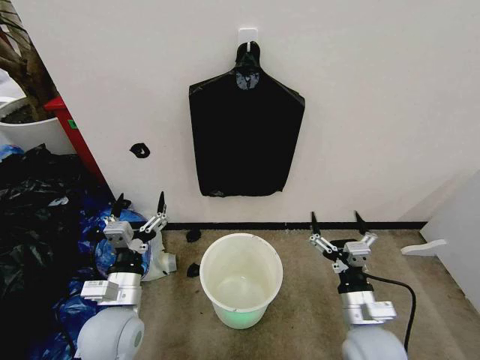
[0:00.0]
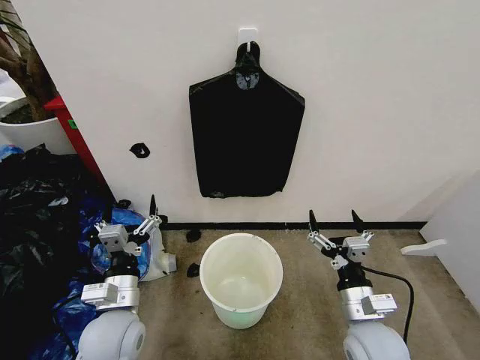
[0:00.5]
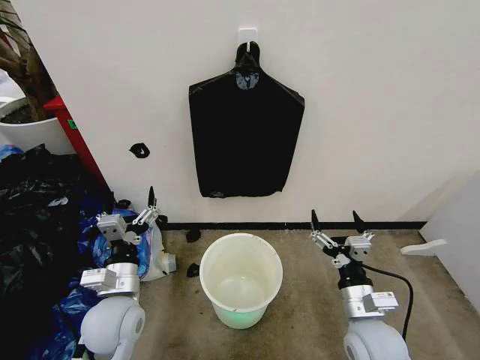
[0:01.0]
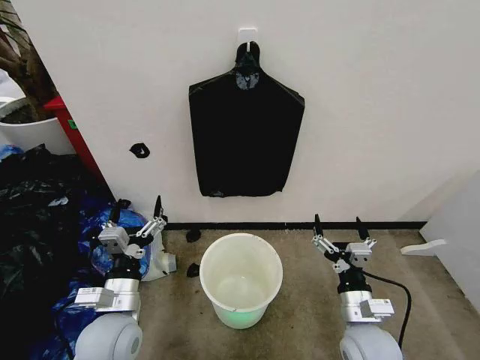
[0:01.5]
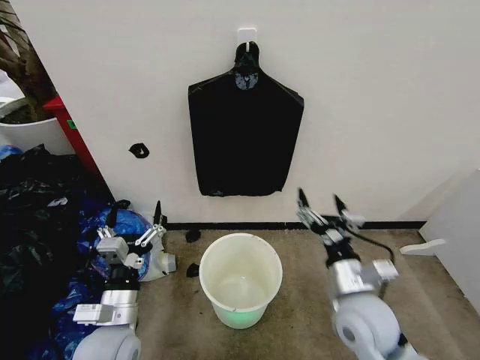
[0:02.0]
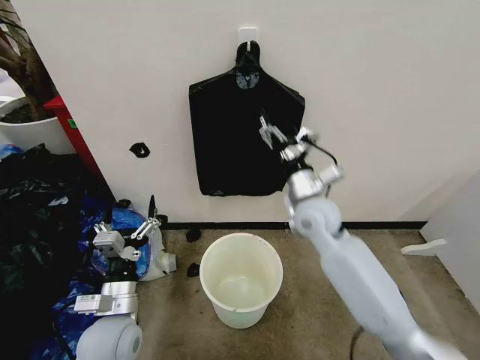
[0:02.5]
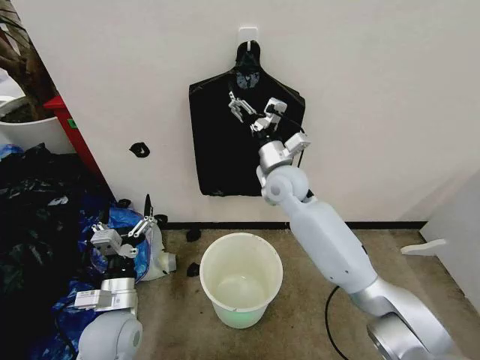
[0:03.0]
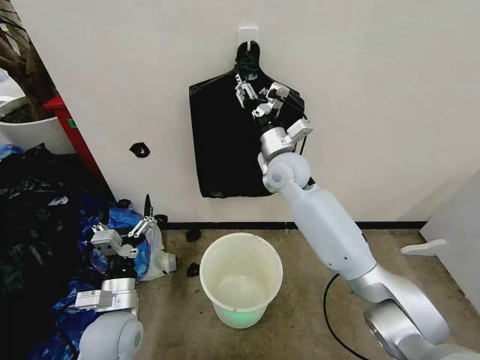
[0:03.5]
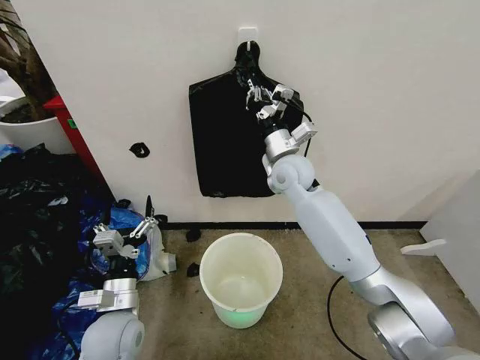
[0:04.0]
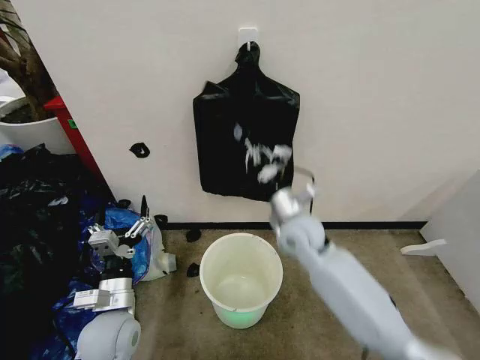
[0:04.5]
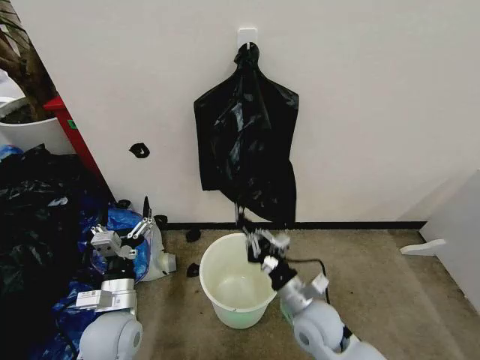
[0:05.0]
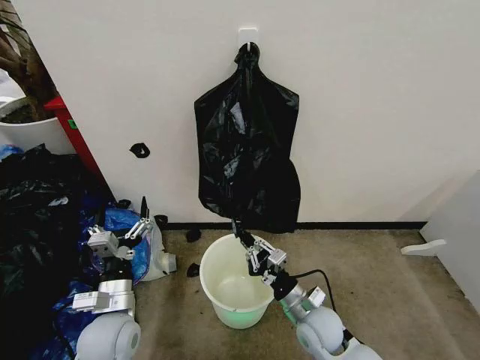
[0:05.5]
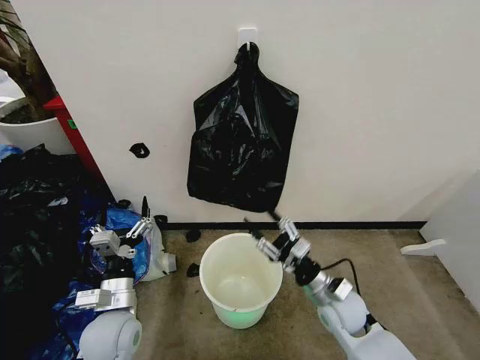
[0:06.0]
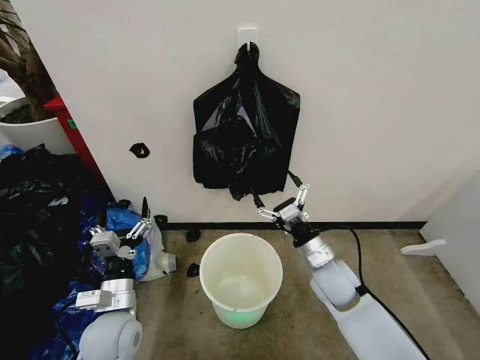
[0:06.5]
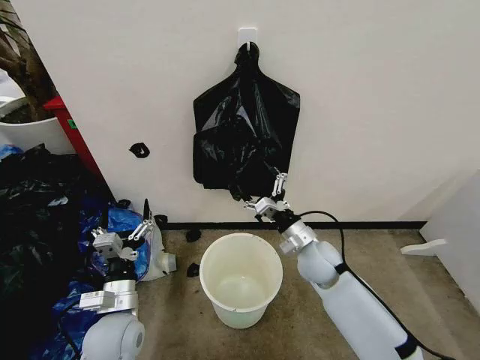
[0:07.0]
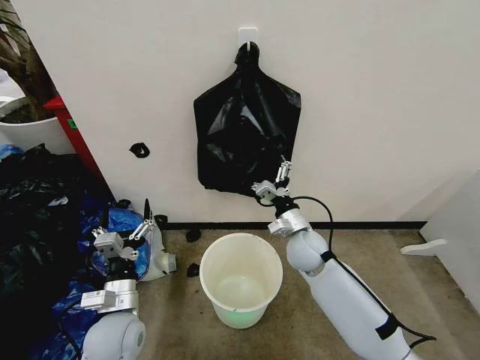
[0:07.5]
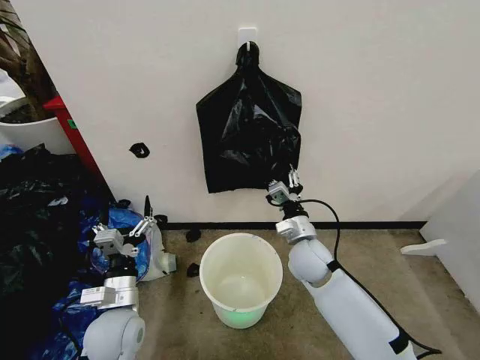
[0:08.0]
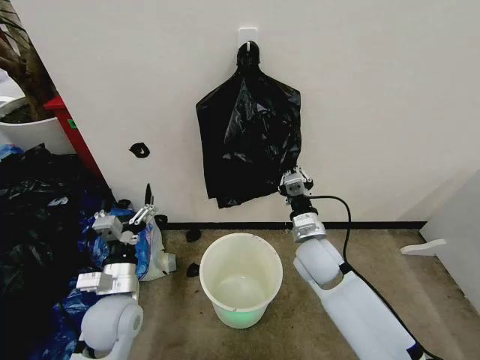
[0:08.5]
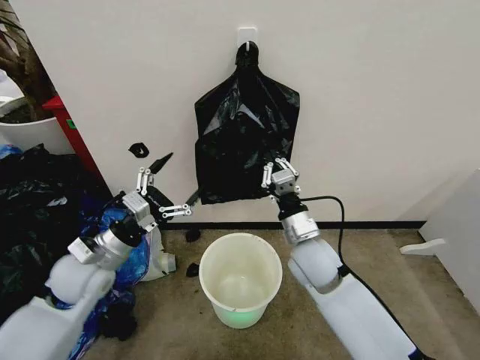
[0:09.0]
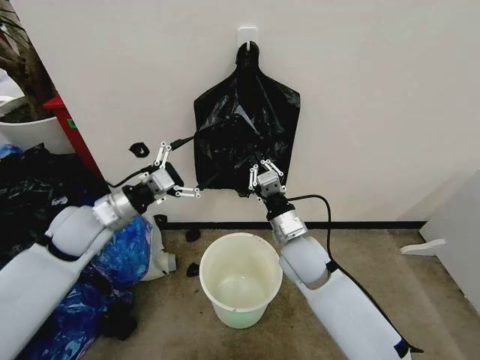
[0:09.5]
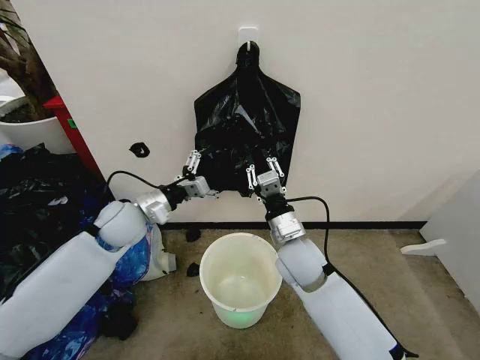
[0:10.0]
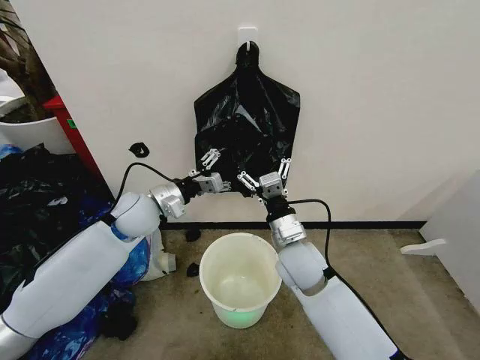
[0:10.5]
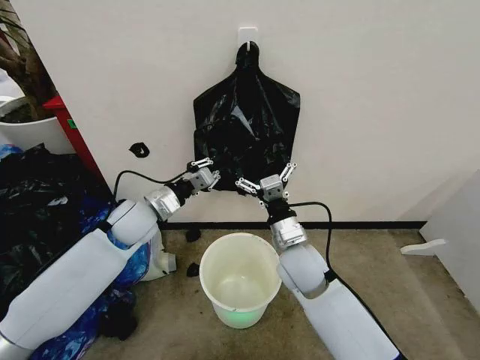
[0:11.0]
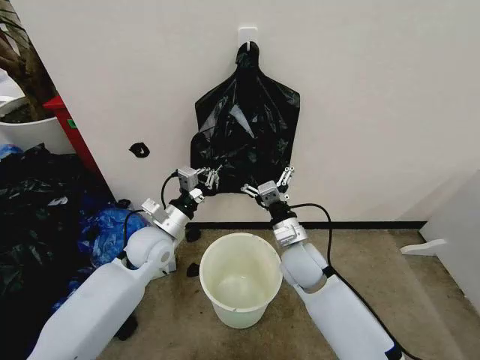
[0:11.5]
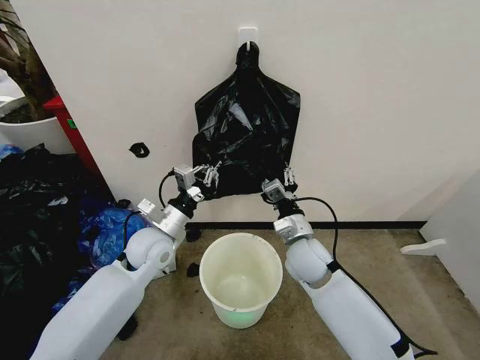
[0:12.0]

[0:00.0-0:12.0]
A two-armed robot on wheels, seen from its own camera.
Task of the whole recording: Place the garbage bag over the trash bin.
0:02.0 to 0:04.0: The right gripper heads forward and upward, covering approximately 30 cm, and closes.
0:04.0 to 0:06.0: The right gripper travels backward, downward and to the right by about 35 cm, and opens up.
0:06.0 to 0:08.0: The right gripper moves forward, to the left and upward, roughly 10 cm, and opens and closes again.
0:08.0 to 0:10.0: The left gripper is displaced forward and upward by some 20 cm, while the right gripper travels upward by approximately 5 cm.
0:10.0 to 0:12.0: The left gripper goes approximately 10 cm to the right and downward, and closes its fingers. The right gripper opens and closes again.

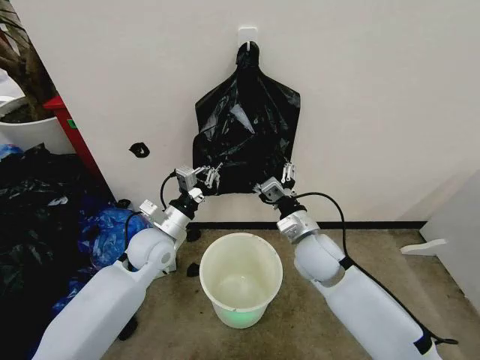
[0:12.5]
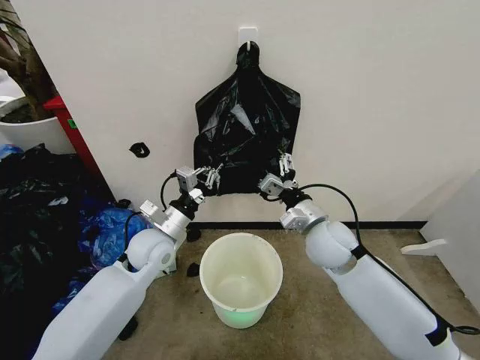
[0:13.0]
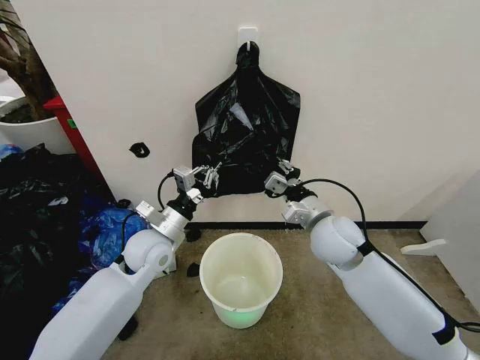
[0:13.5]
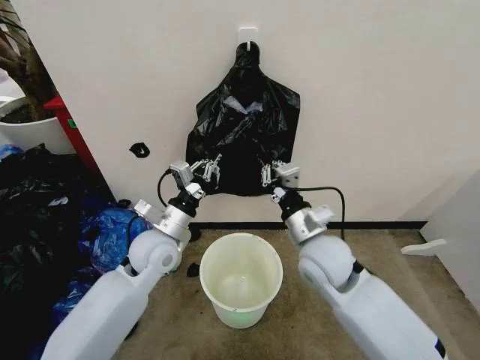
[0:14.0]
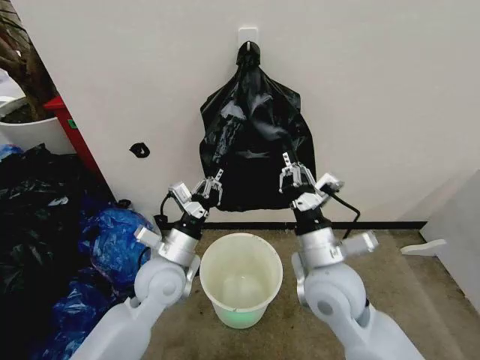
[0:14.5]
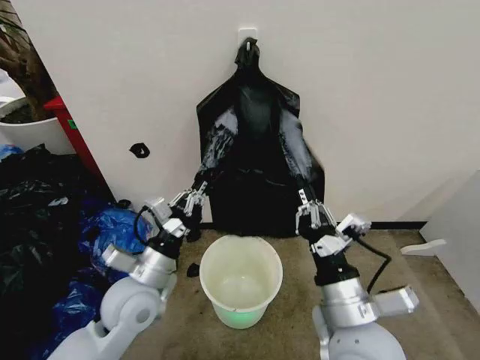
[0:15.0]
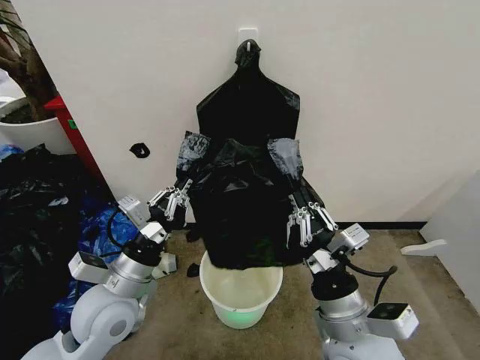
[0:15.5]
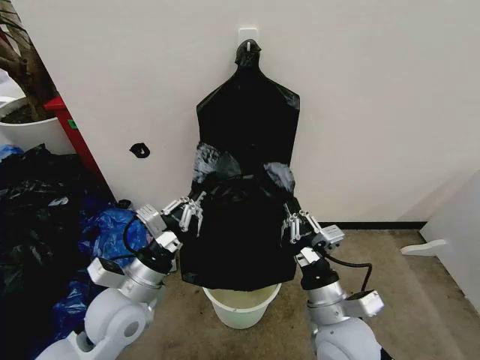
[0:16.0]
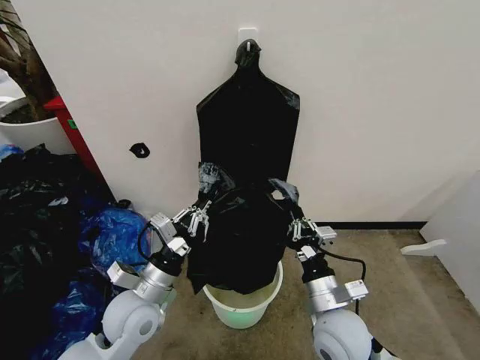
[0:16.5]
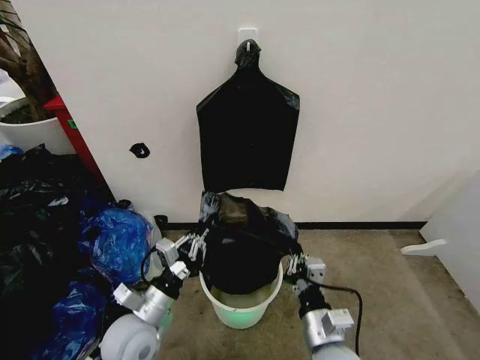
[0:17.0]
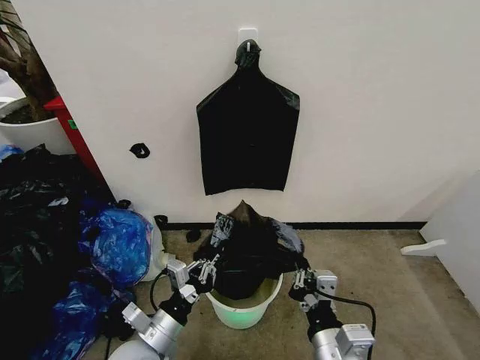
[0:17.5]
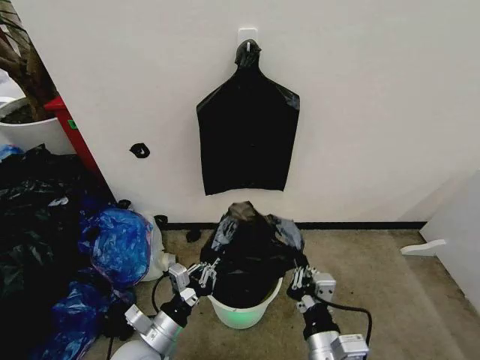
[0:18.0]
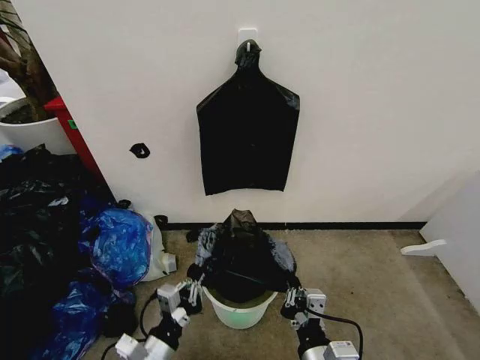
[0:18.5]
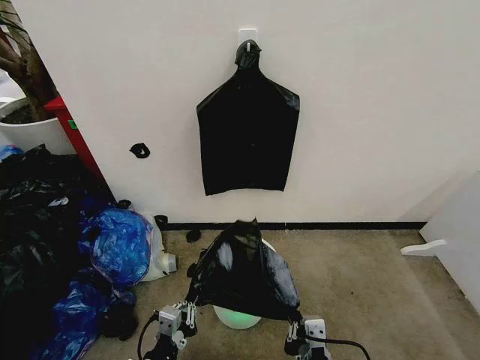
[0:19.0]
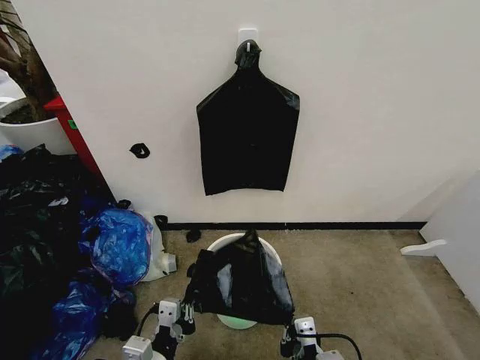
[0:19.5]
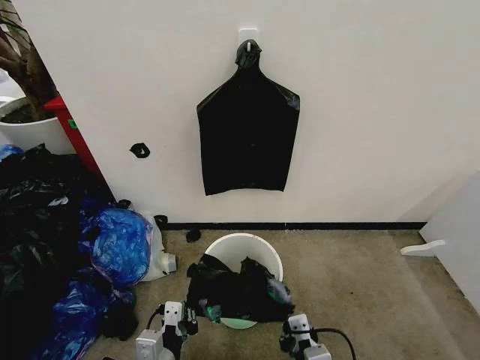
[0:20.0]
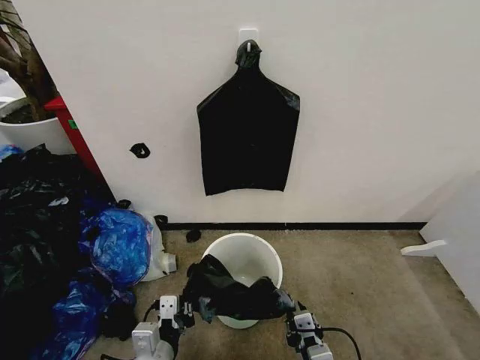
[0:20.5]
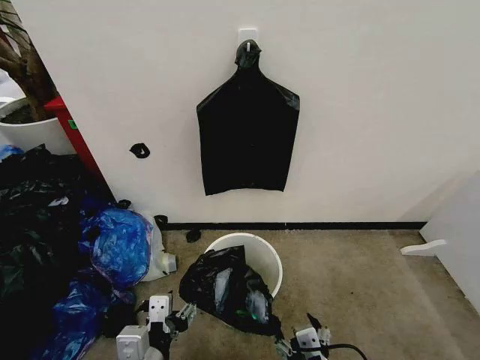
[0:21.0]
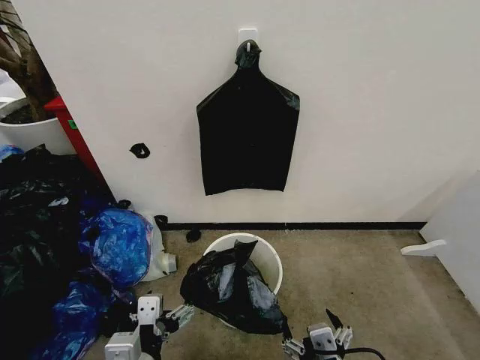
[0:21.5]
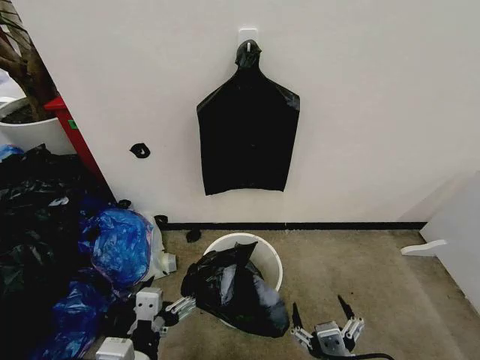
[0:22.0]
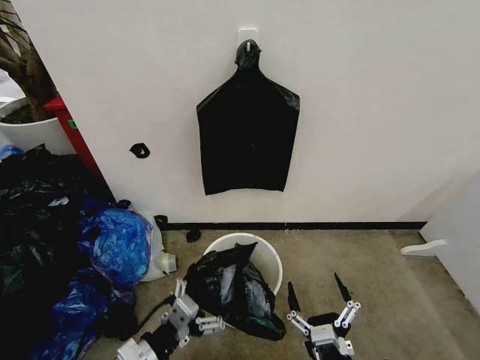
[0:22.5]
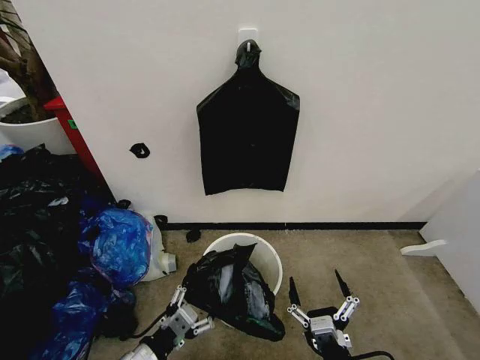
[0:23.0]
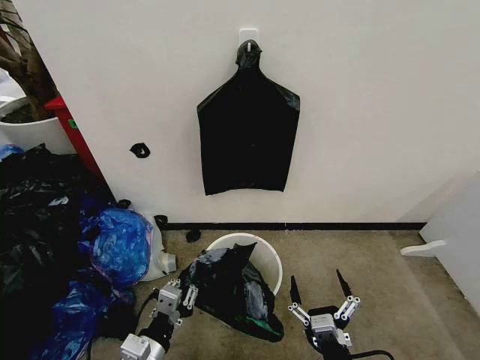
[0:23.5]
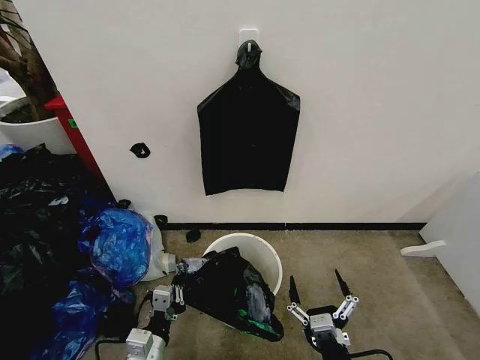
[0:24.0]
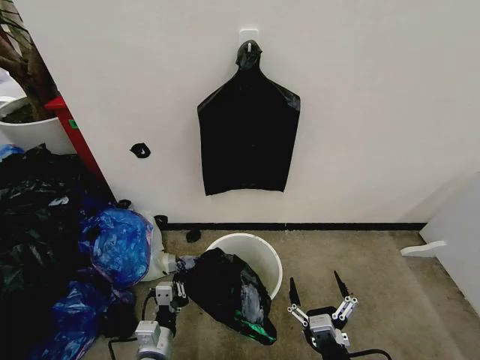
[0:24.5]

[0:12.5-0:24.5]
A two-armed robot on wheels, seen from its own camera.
Task of the whole recording: Place the garbage bag over the trash bin.
0:12.5 to 0:14.5: The right gripper moves backward and upward, some 10 cm, and closes its fingers. The left gripper goes some 10 cm backward.
0:14.5 to 0:16.5: The left gripper goes about 5 cm backward, while the right gripper moves downward, about 10 cm.
0:16.5 to 0:18.5: The left gripper heads backward and downward, covering about 15 cm. The right gripper travels backward by roughly 10 cm.
0:18.5 to 0:20.5: The right gripper travels downward by some 5 cm.
0:20.5 to 0:22.5: The right gripper moves approximately 10 cm upward and comes back, and opens its fingers. The left gripper opens.
0:22.5 to 0:24.5: The left gripper is displaced downward by approximately 15 cm, and closes up.

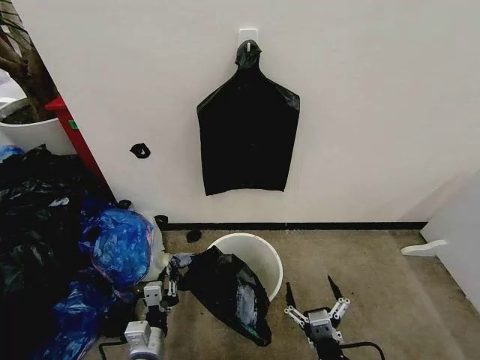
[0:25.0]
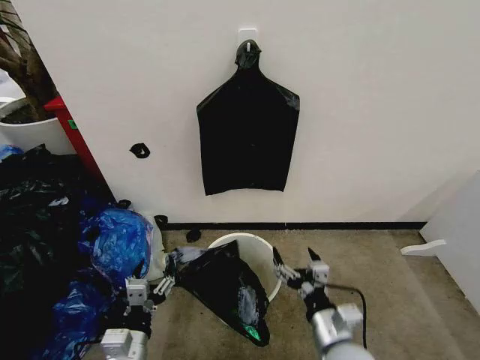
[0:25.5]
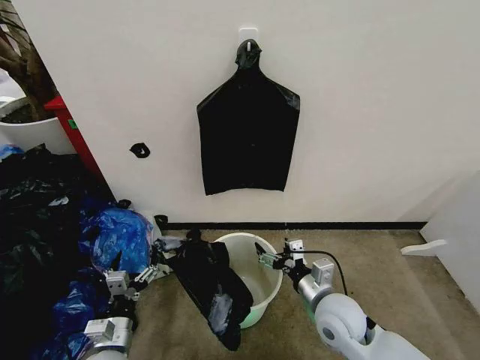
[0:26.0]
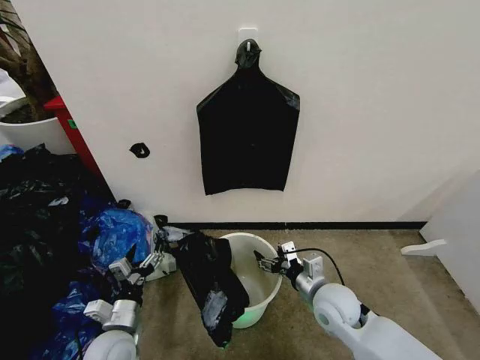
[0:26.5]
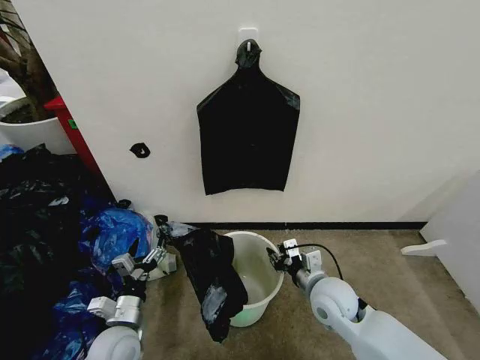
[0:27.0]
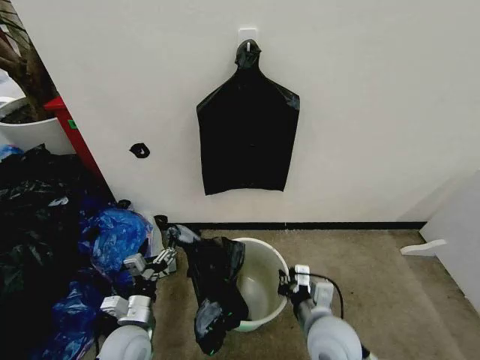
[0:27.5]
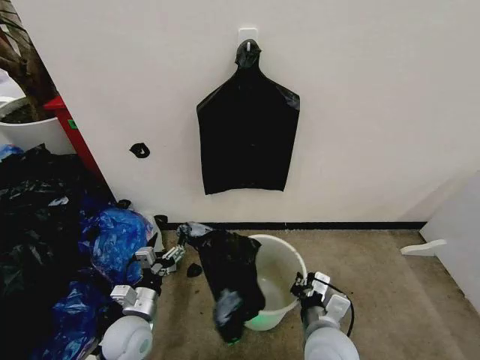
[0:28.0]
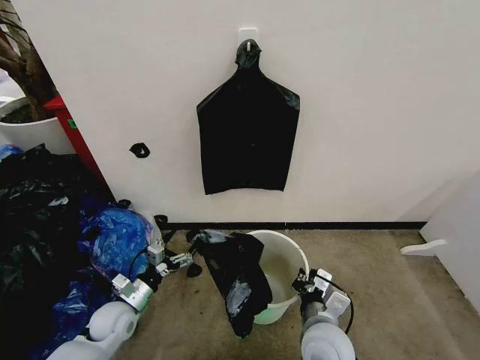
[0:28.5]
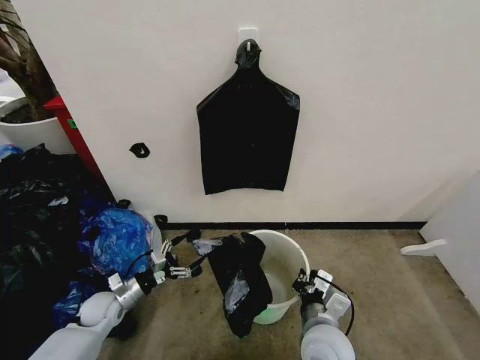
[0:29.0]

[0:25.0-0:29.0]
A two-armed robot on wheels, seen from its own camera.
Task of the whole recording: Place the garbage bag over the trash bin.
0:25.0 to 0:27.0: The right gripper heads forward, covering roughly 20 cm, and closes its fingers. Meanwhile the left gripper is displaced to the left and forward by some 10 cm, and opens up.
0:27.0 to 0:29.0: The right gripper travels backward by approximately 10 cm, while the left gripper shifts about 15 cm forward and to the left.
